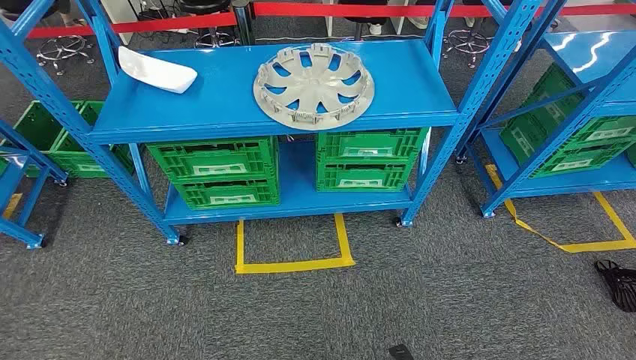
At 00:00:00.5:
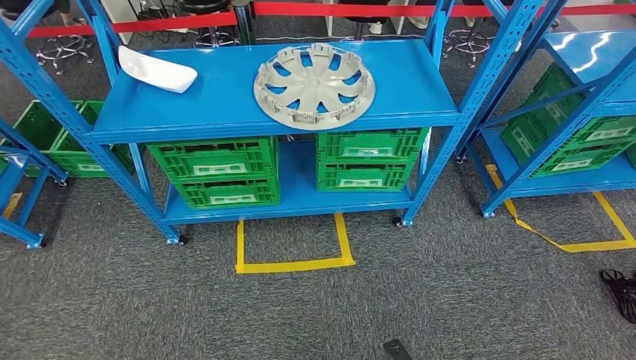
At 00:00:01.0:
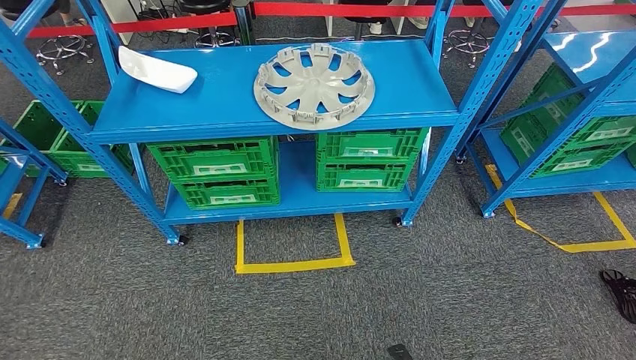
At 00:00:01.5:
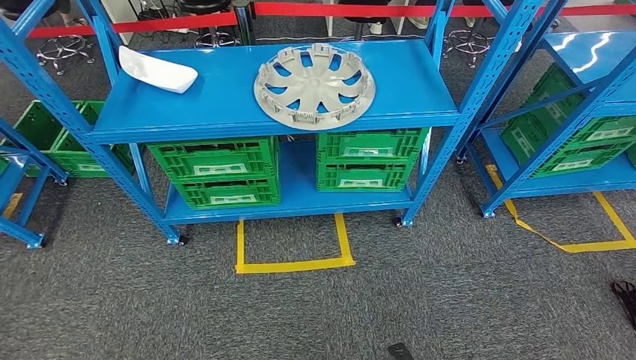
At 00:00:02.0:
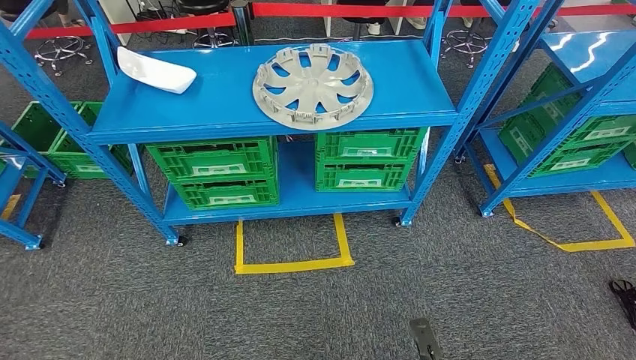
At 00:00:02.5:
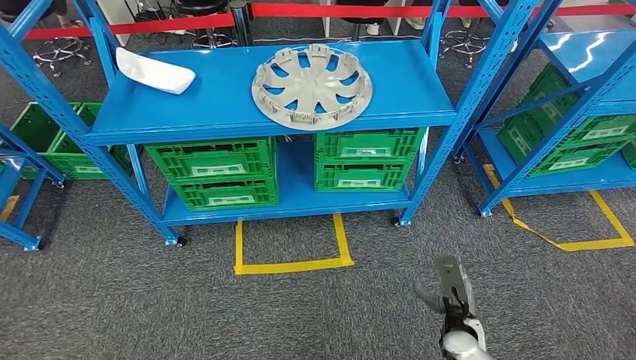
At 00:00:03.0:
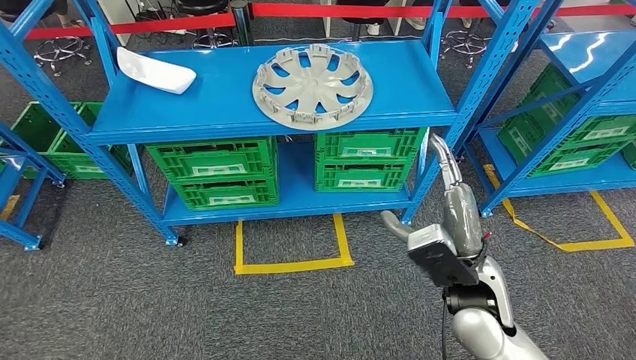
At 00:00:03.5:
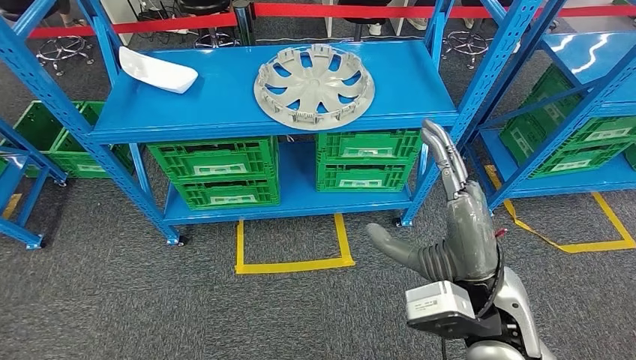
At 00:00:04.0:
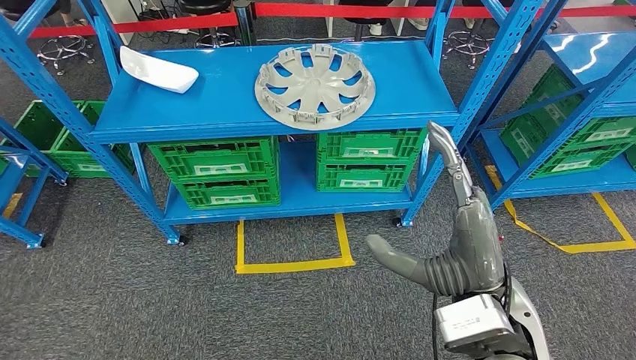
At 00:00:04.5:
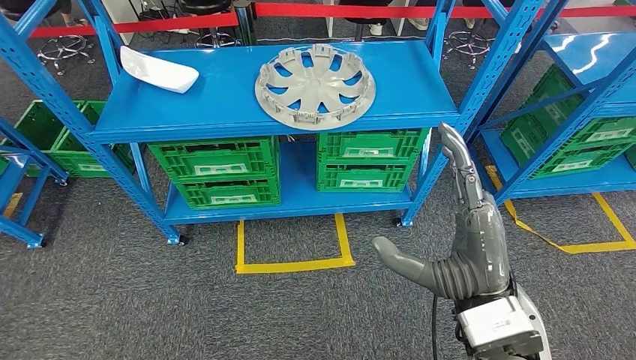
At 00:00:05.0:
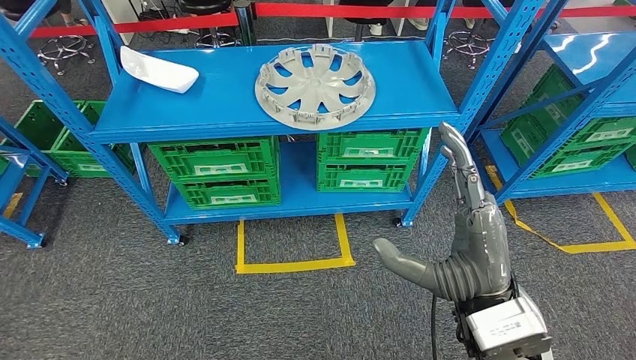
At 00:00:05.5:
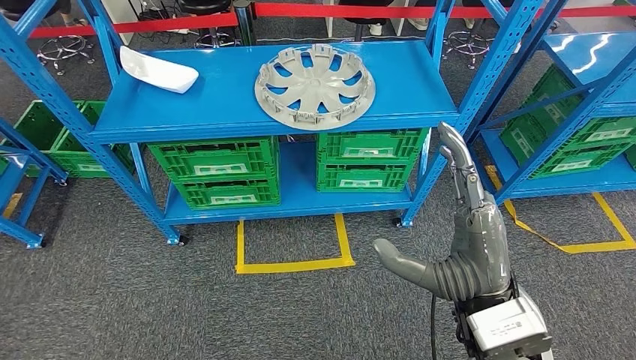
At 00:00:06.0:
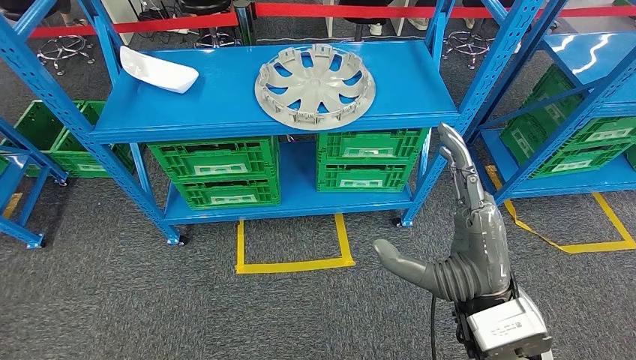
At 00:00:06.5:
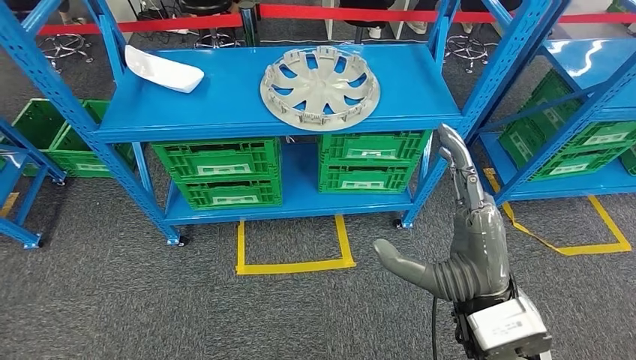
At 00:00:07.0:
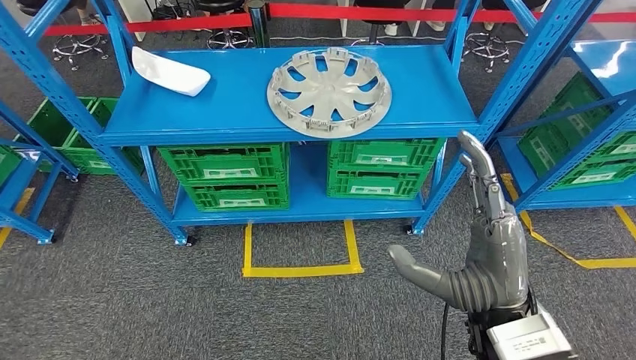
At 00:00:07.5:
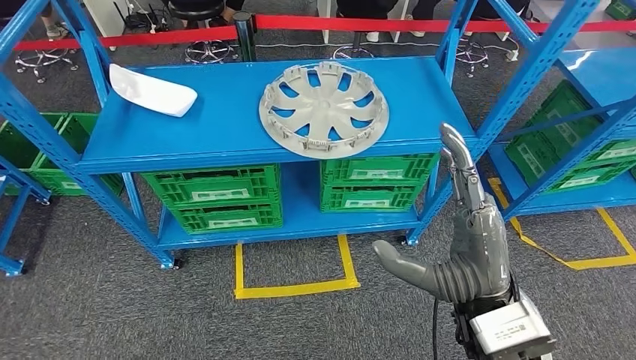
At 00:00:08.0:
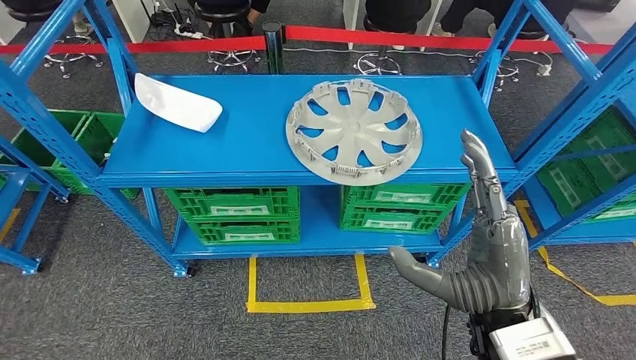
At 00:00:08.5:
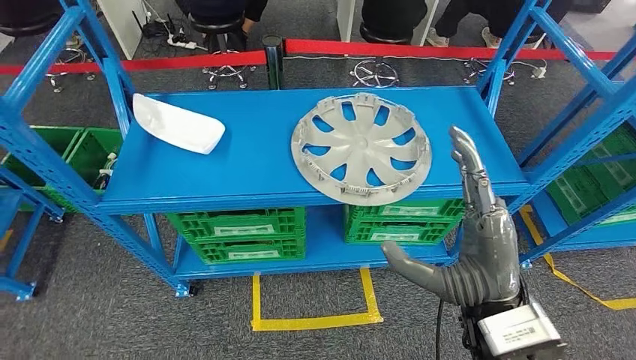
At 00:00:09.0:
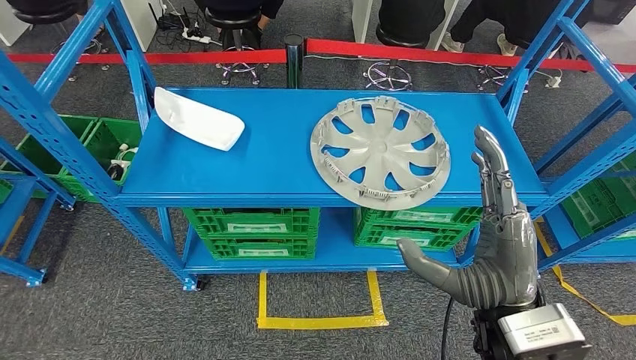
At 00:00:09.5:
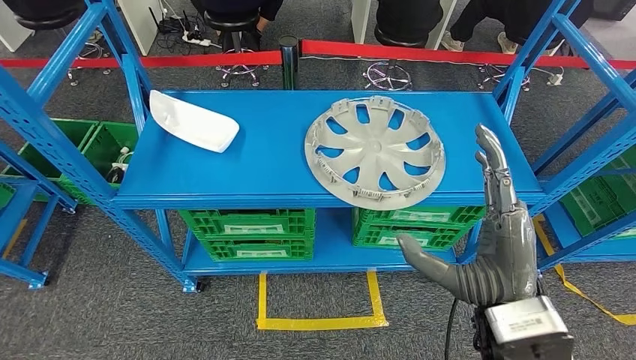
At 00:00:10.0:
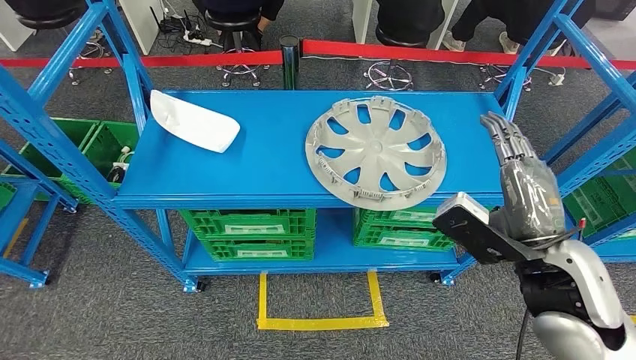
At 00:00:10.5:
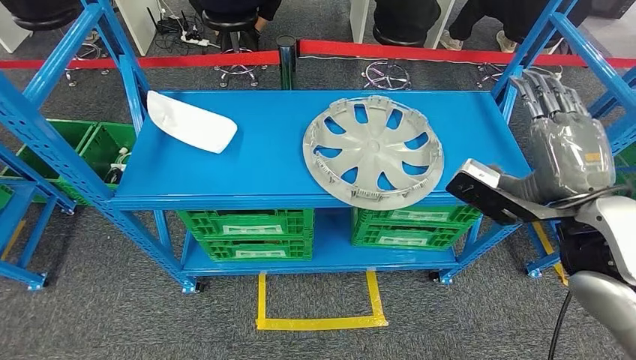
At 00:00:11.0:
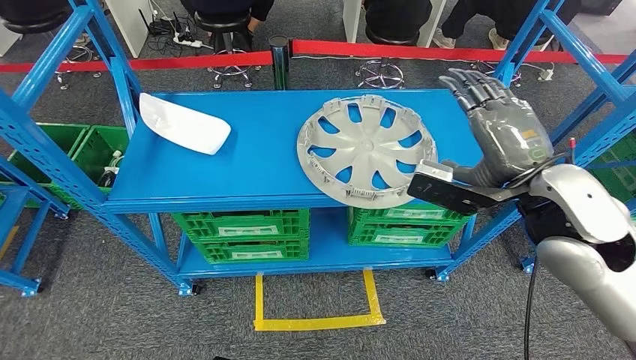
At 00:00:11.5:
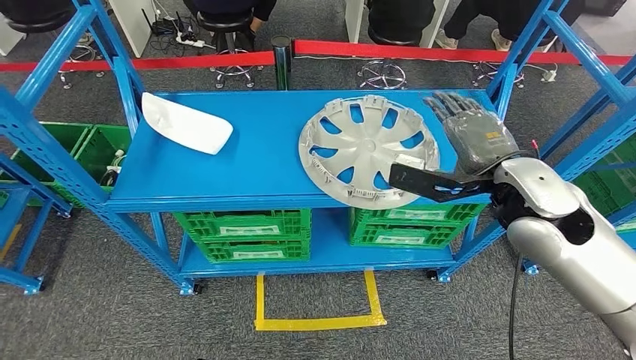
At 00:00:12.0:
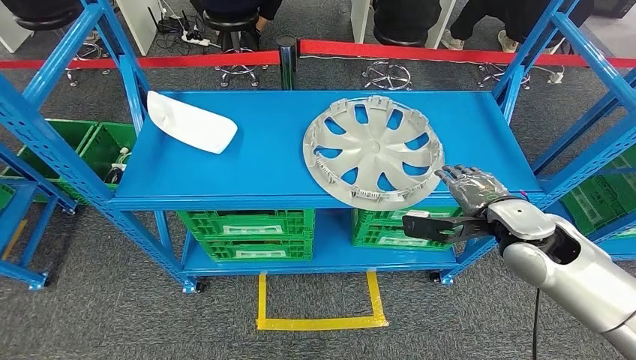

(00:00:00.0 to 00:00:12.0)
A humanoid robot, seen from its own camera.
00:00:02.0 - 00:00:04.0: The right hand goes some 35 cm upward.
00:00:04.0 - 00:00:06.0: The hands make only small movements.
00:00:10.0 - 00:00:12.0: The right hand is displaced forward by approximately 10 cm.

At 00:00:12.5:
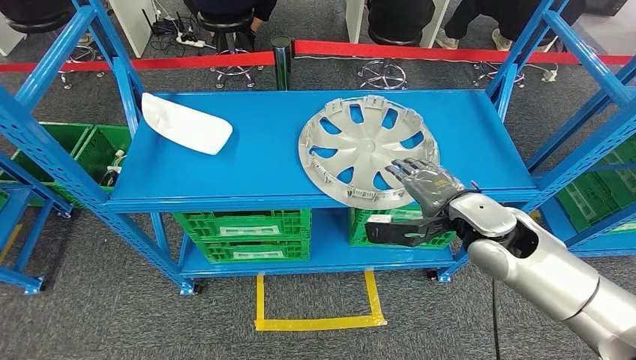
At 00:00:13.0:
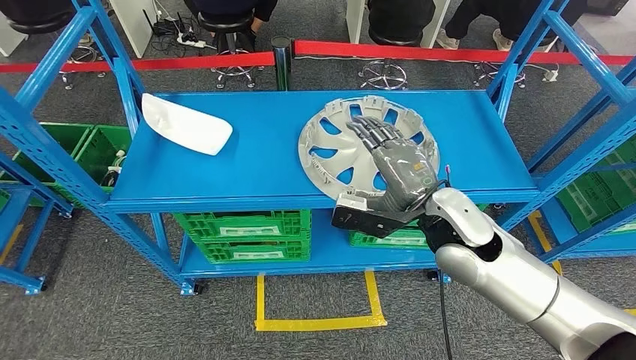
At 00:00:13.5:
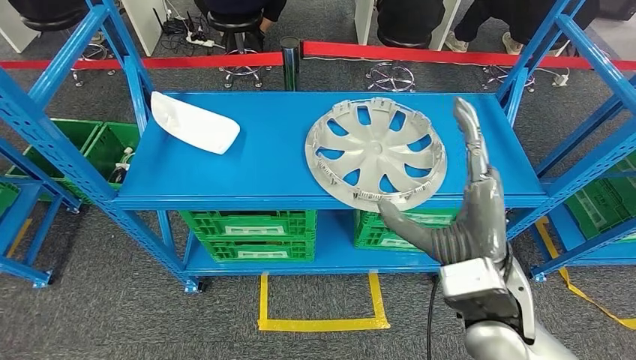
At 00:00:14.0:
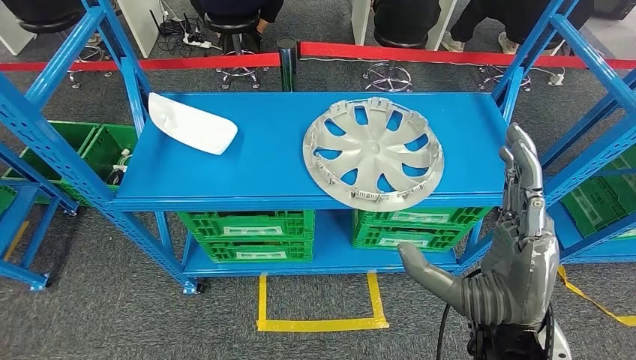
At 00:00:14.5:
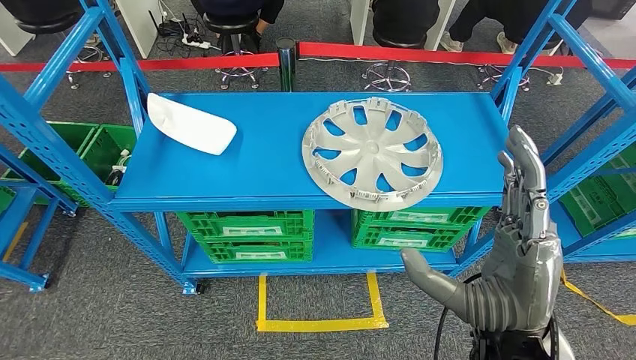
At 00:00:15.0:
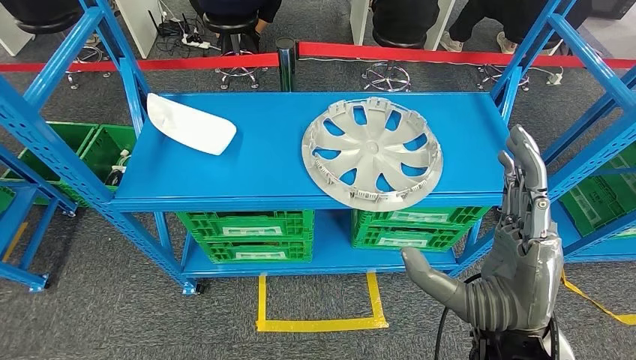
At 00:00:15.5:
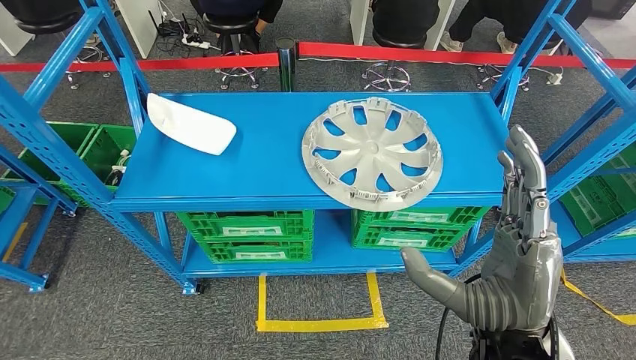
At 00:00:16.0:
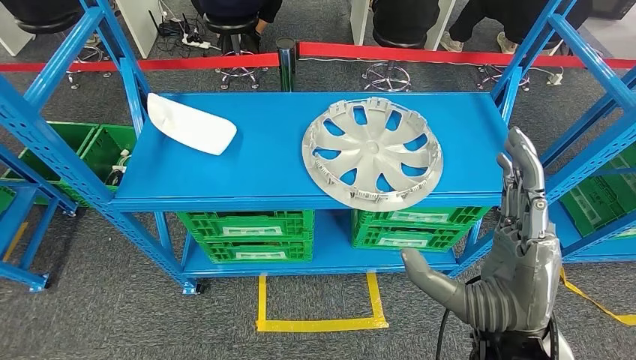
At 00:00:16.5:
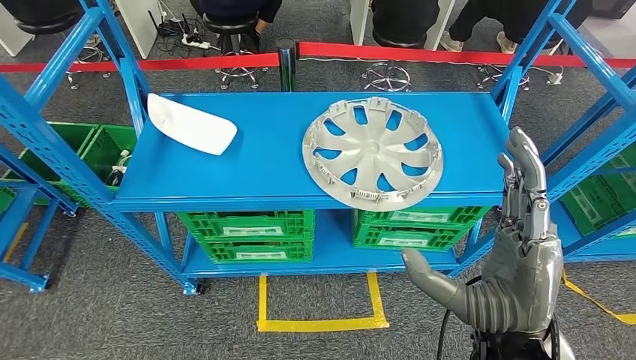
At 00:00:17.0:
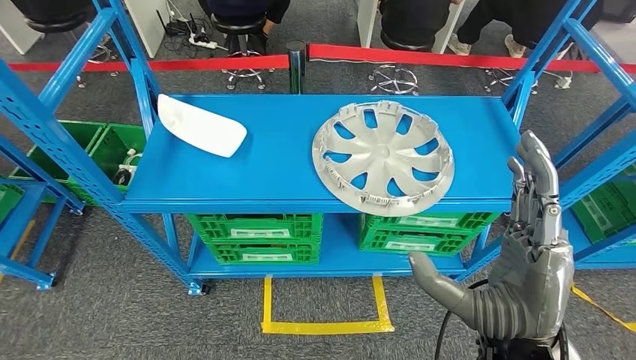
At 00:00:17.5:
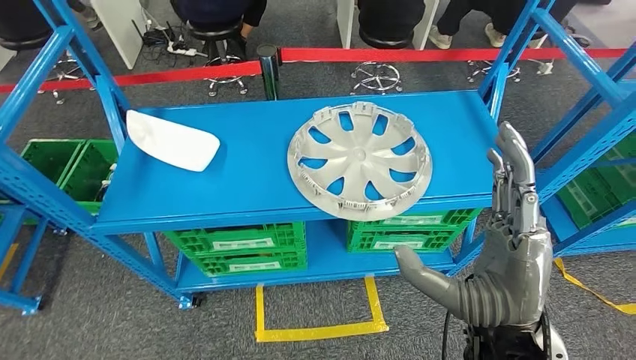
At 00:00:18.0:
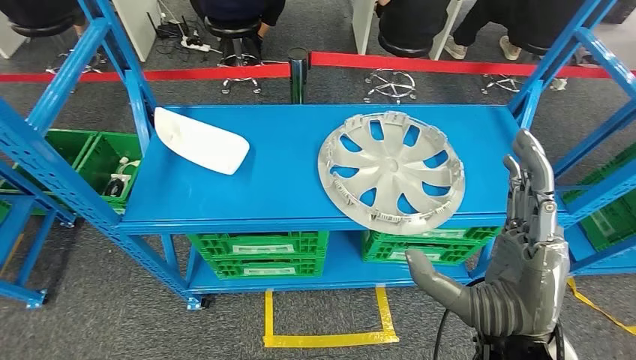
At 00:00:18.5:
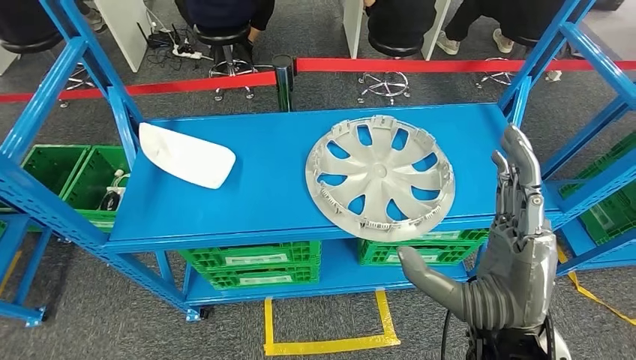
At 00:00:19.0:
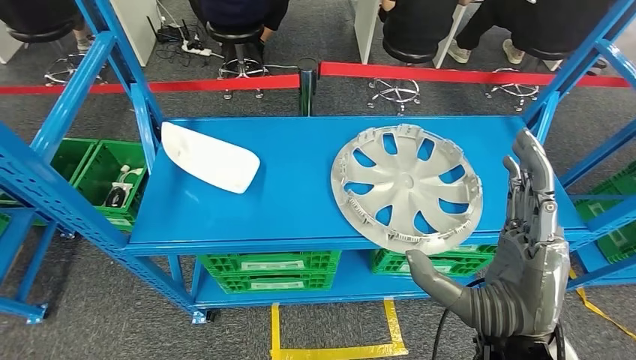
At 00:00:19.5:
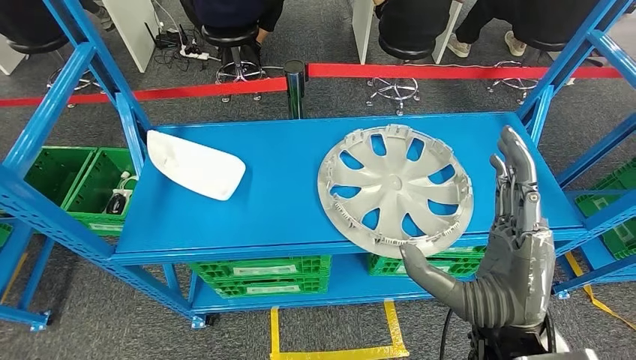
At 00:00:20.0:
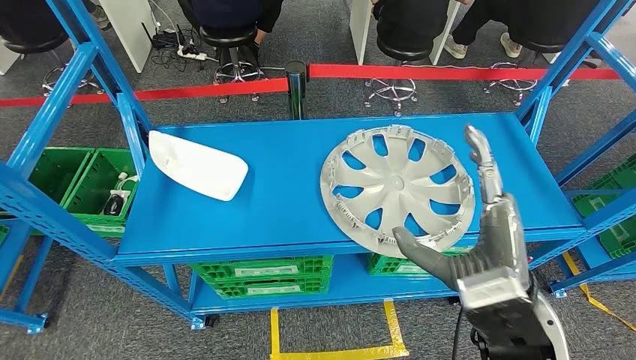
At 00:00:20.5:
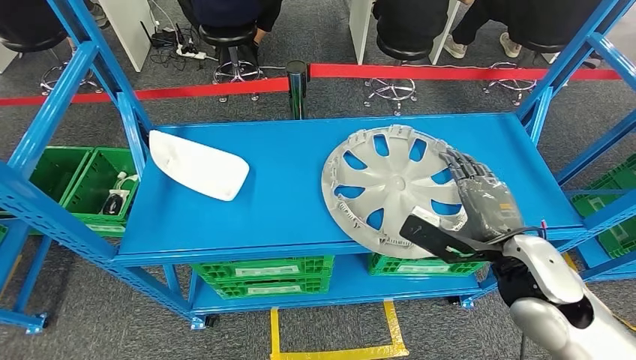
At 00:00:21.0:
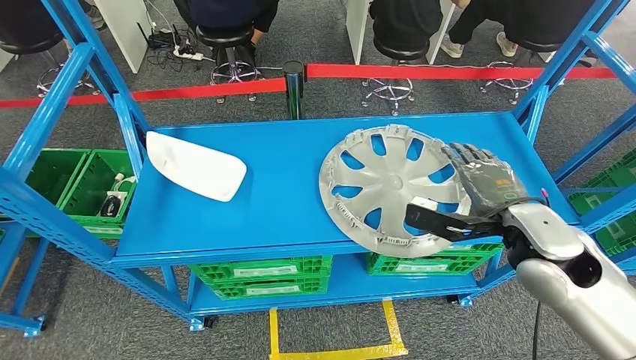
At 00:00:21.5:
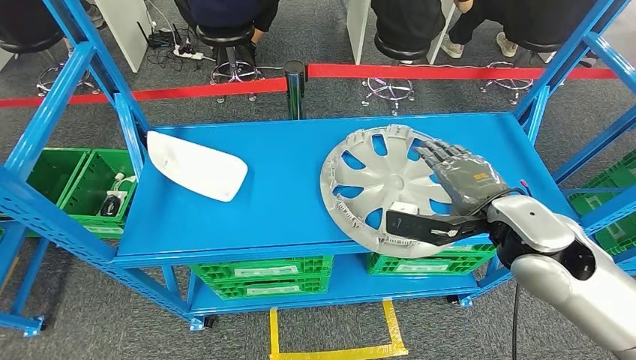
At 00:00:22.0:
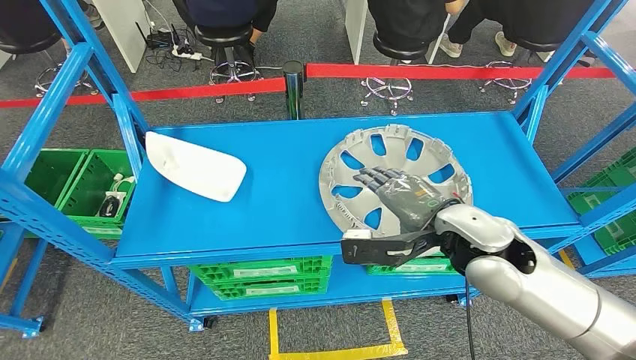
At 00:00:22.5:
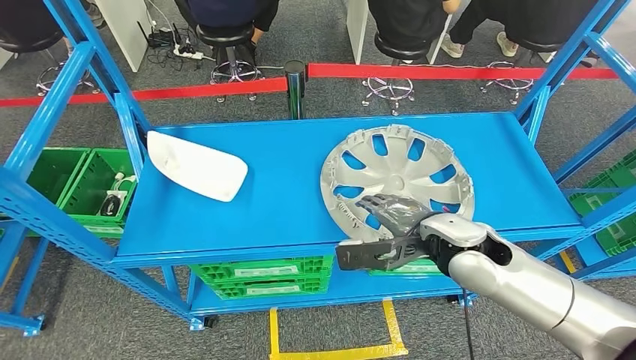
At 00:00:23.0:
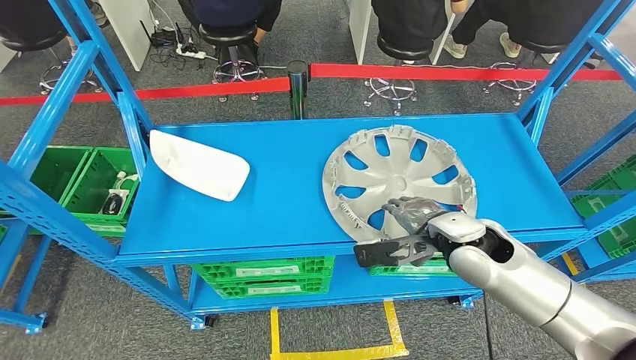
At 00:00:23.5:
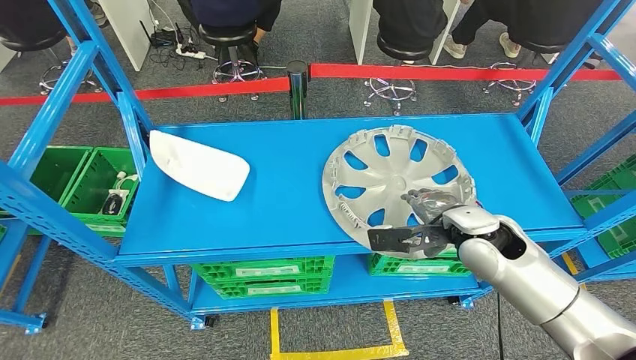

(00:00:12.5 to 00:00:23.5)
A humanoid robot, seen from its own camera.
00:00:14.5 - 00:00:16.0: Both hands stay about where they are.
00:00:21.5 - 00:00:23.5: The right hand is displaced downward by approximately 10 cm.
